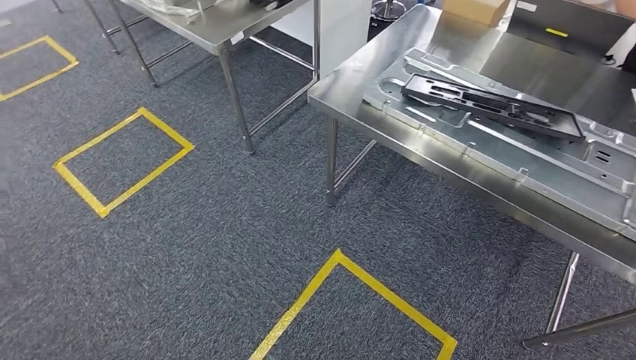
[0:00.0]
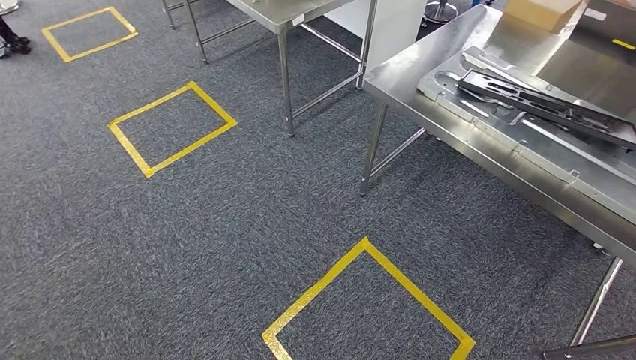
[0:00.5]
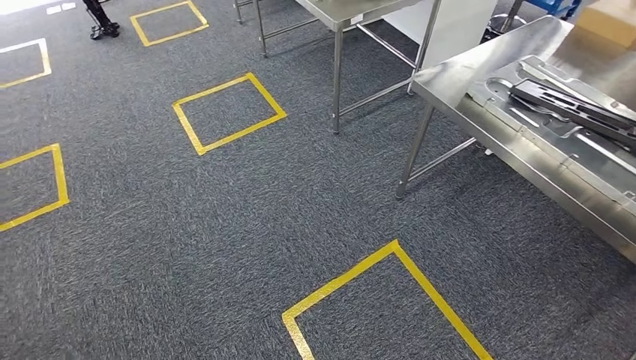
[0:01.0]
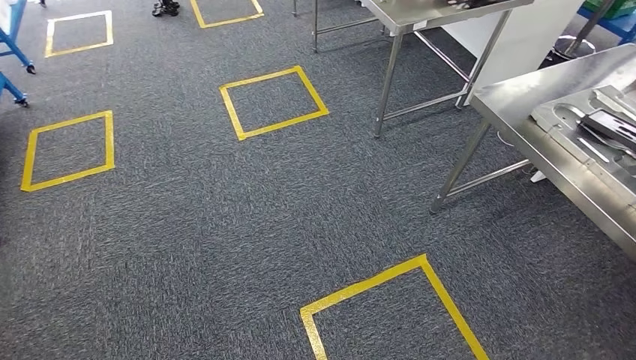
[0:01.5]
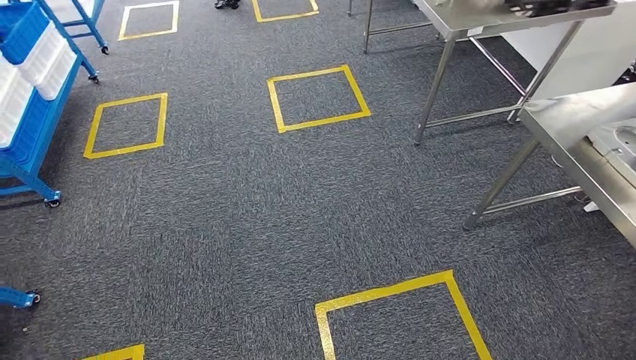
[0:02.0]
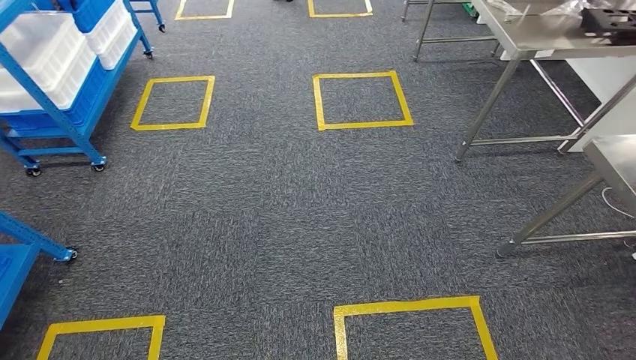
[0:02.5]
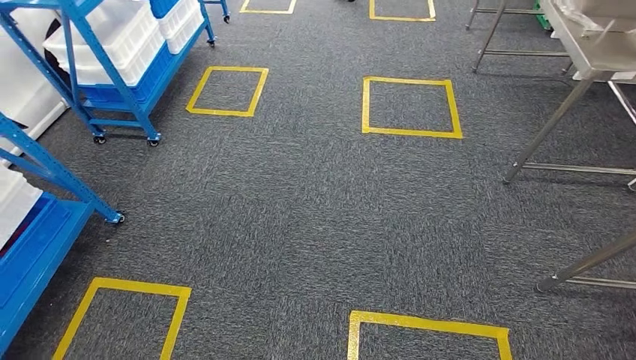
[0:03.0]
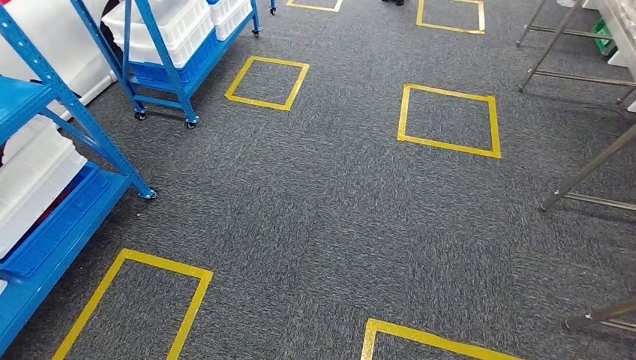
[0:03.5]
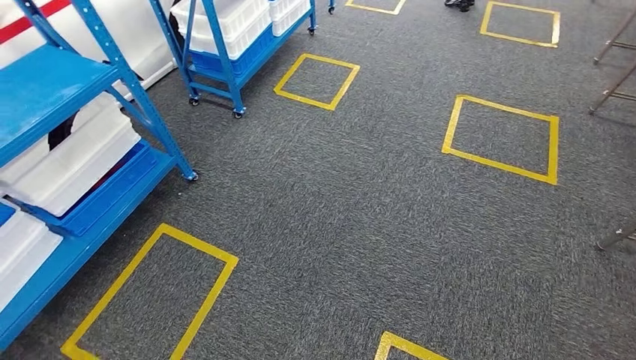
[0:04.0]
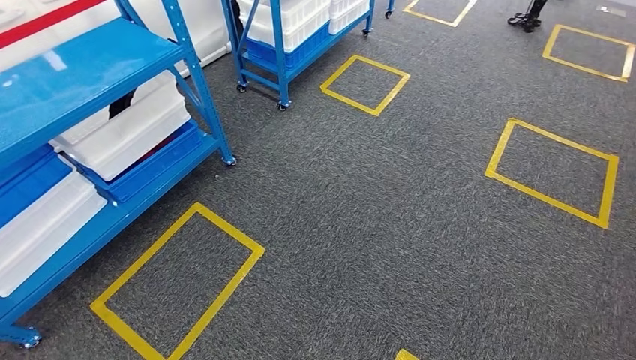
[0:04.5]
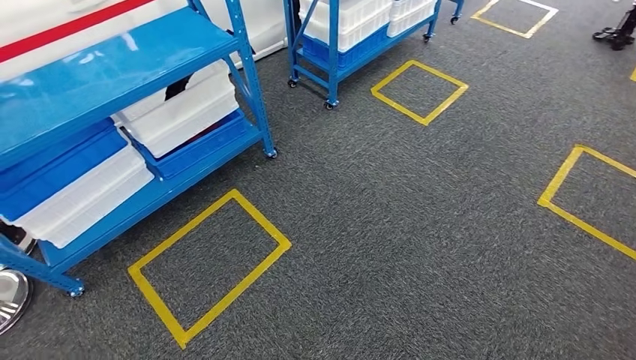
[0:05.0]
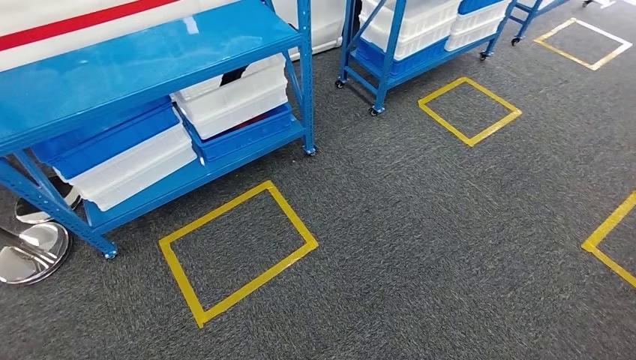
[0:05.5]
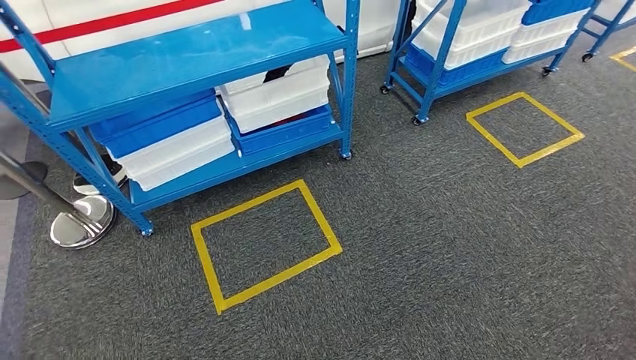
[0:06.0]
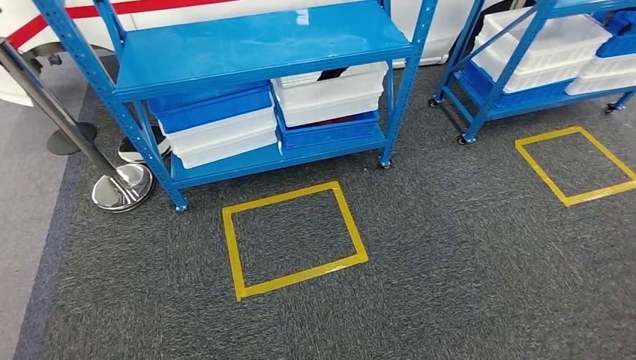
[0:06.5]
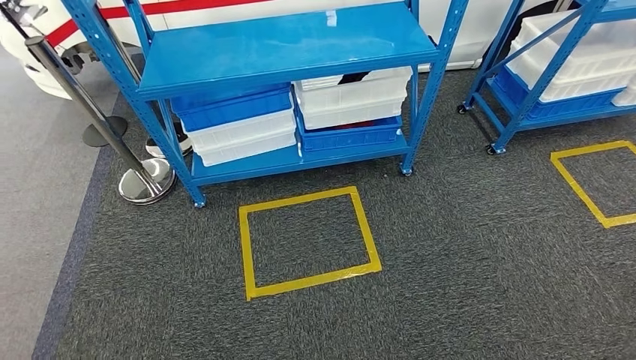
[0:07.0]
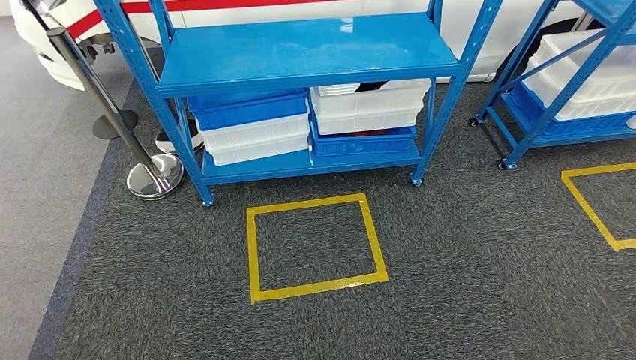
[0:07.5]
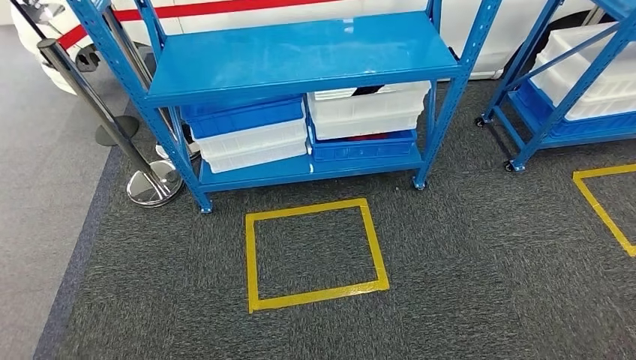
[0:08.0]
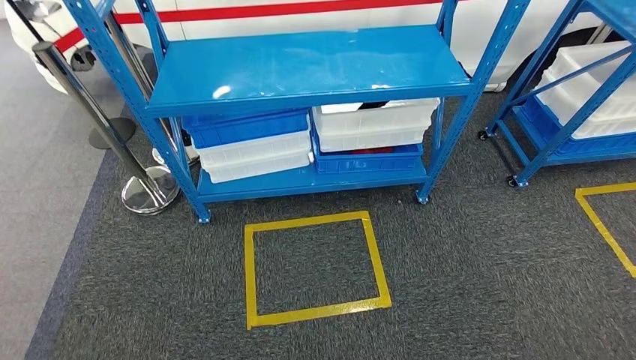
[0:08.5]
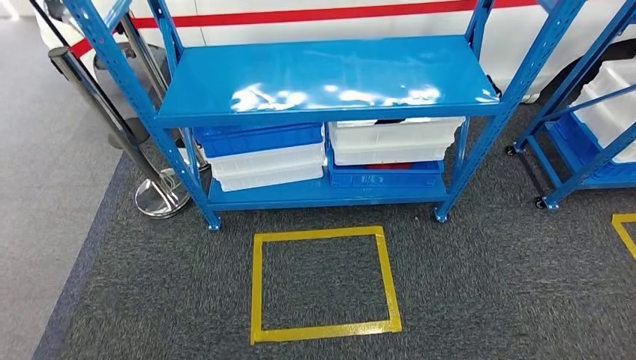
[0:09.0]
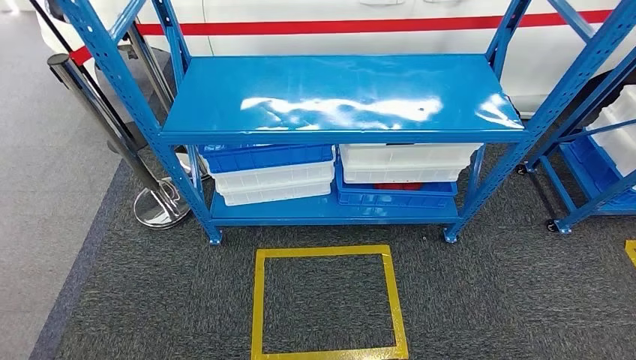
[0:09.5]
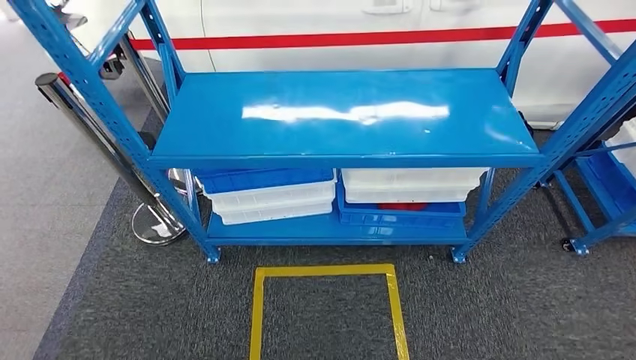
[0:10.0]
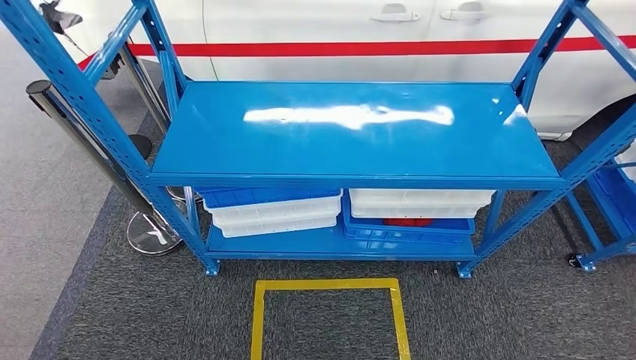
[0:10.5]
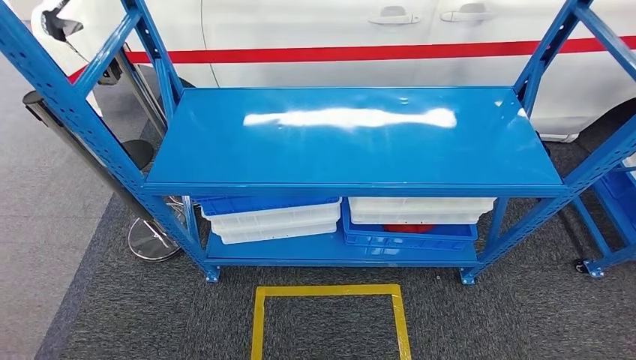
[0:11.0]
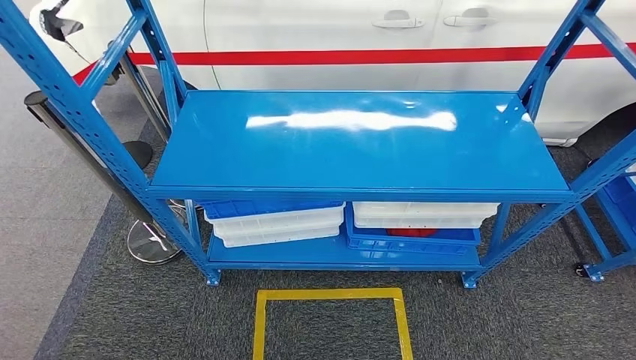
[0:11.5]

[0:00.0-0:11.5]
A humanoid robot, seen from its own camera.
Step, 0:02.5 to 0:11.5: Move to the initial position of the shelf.

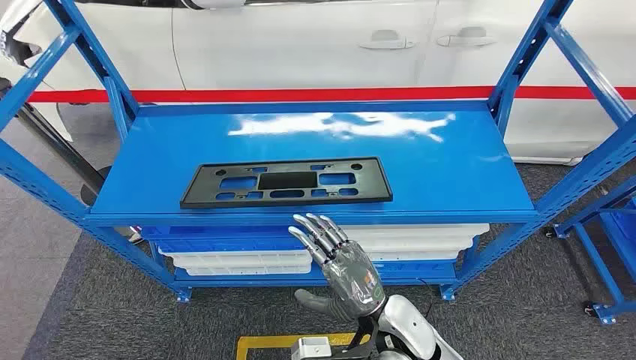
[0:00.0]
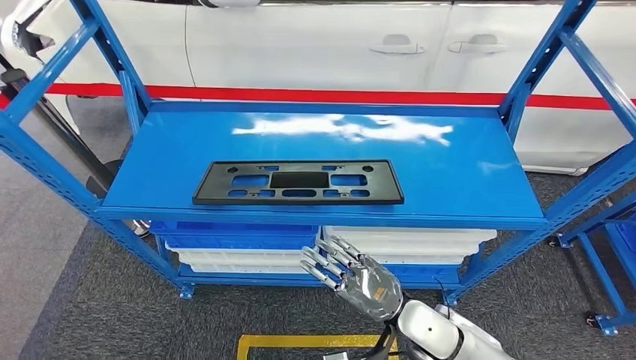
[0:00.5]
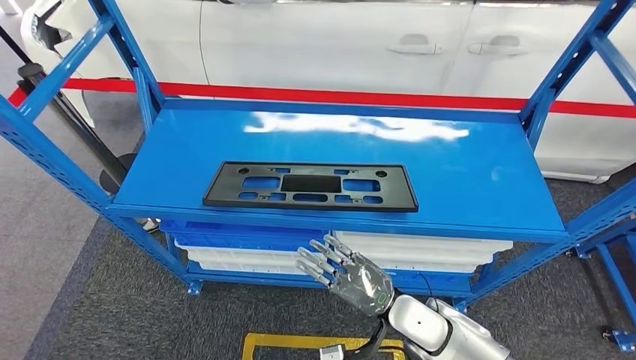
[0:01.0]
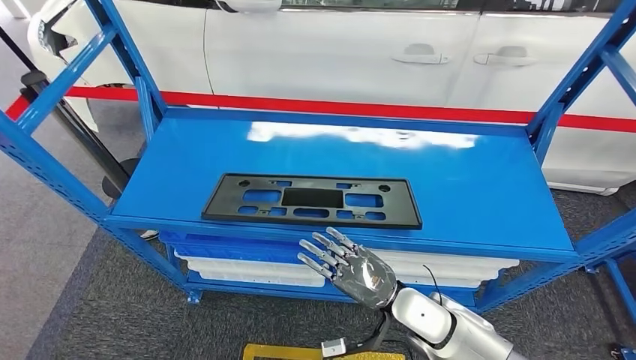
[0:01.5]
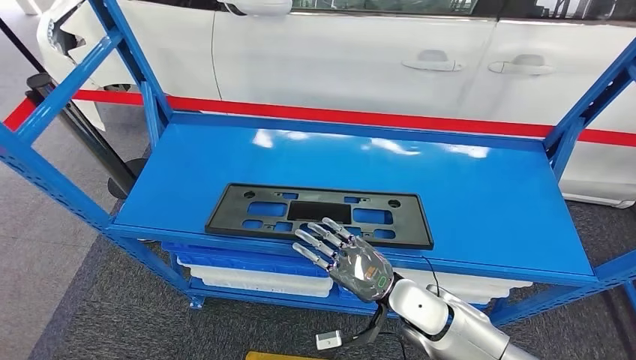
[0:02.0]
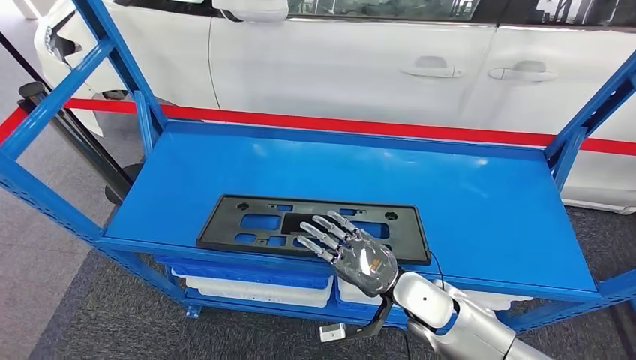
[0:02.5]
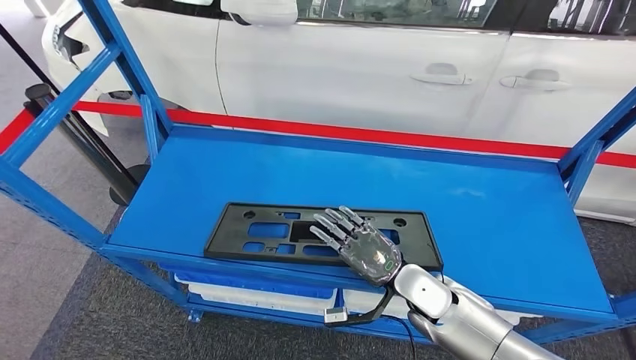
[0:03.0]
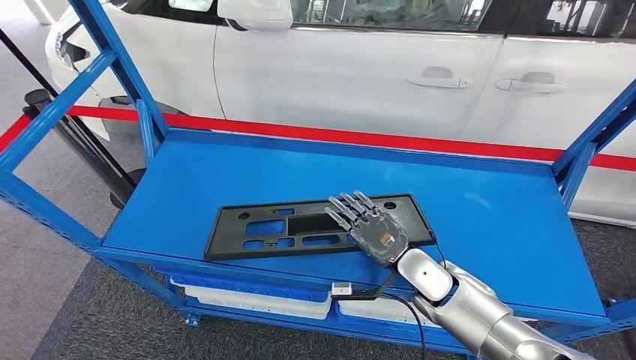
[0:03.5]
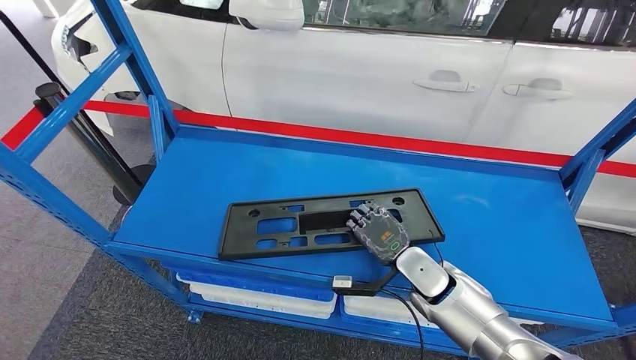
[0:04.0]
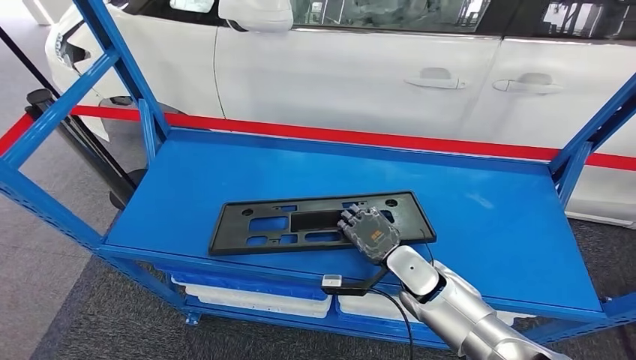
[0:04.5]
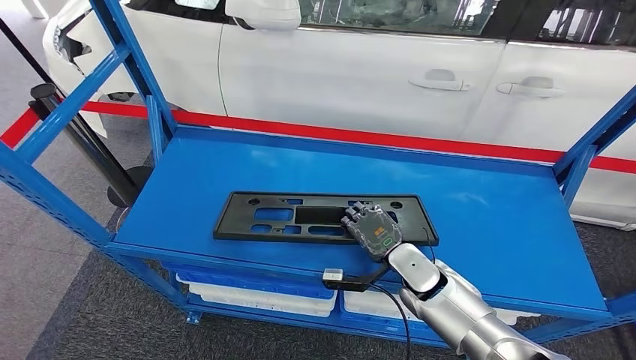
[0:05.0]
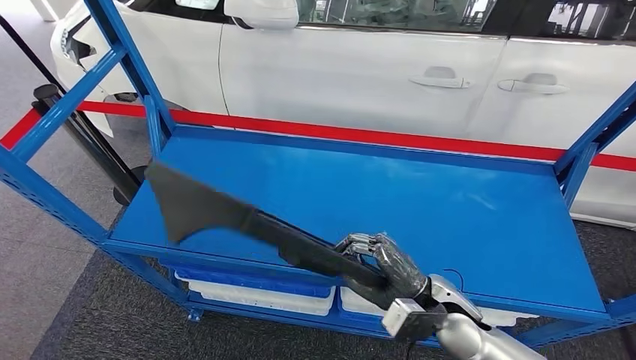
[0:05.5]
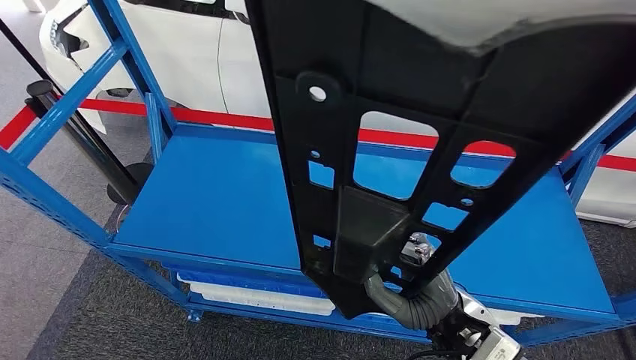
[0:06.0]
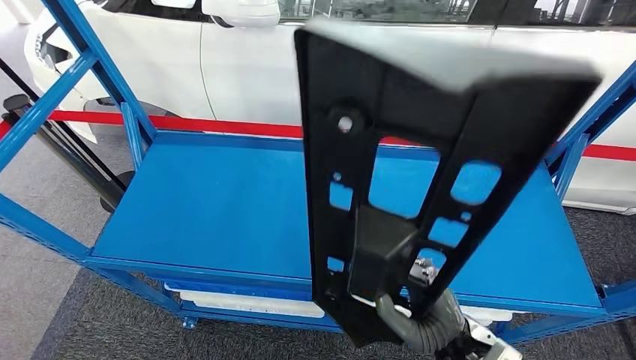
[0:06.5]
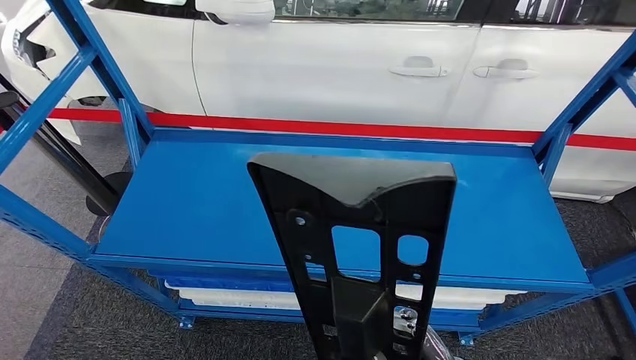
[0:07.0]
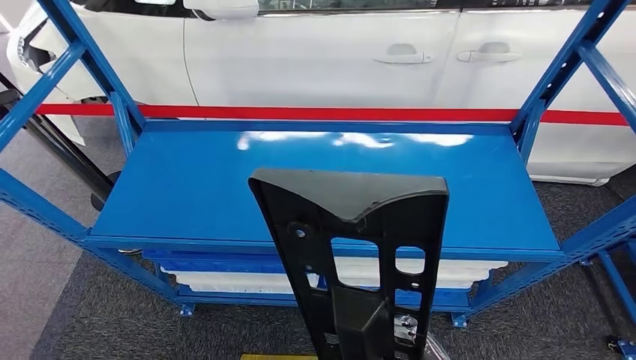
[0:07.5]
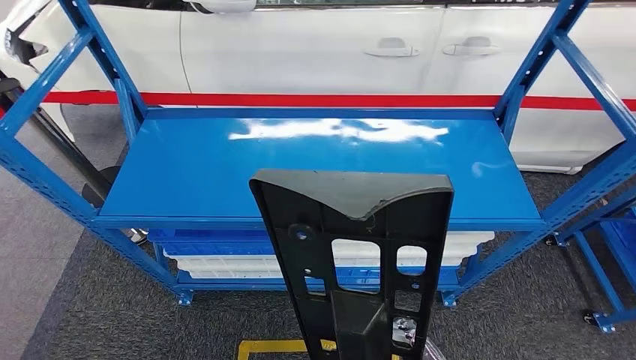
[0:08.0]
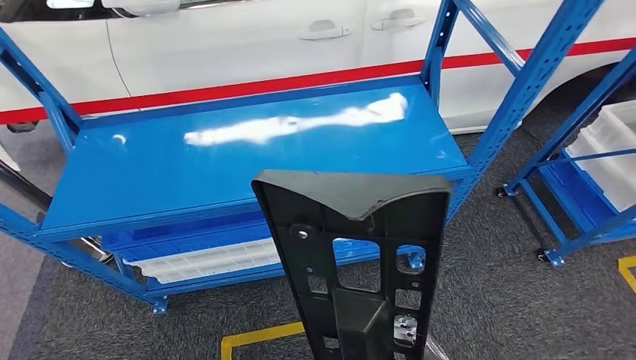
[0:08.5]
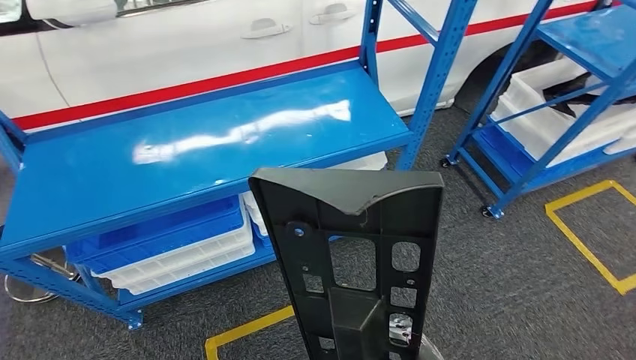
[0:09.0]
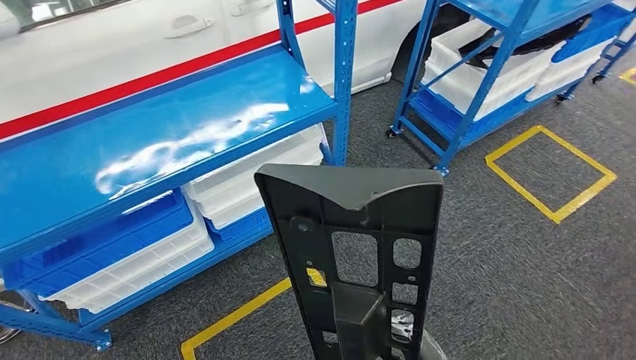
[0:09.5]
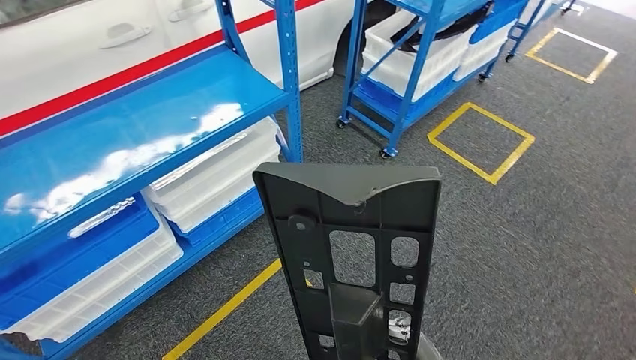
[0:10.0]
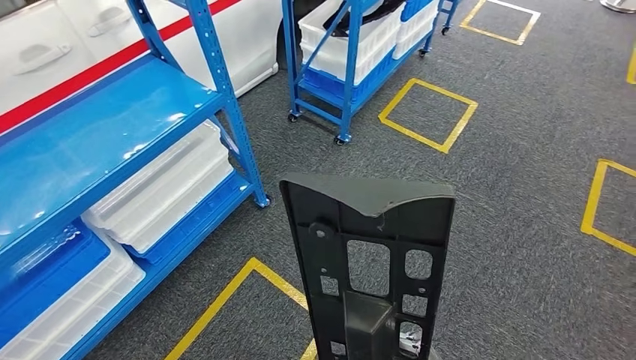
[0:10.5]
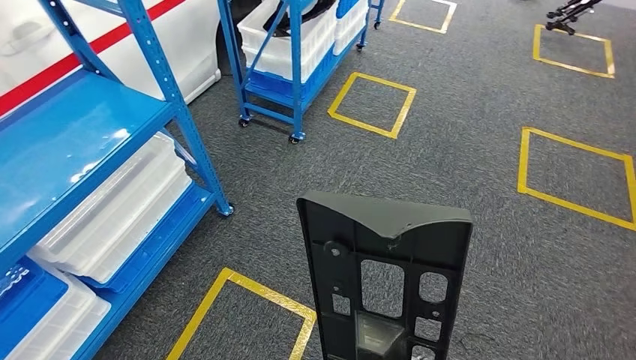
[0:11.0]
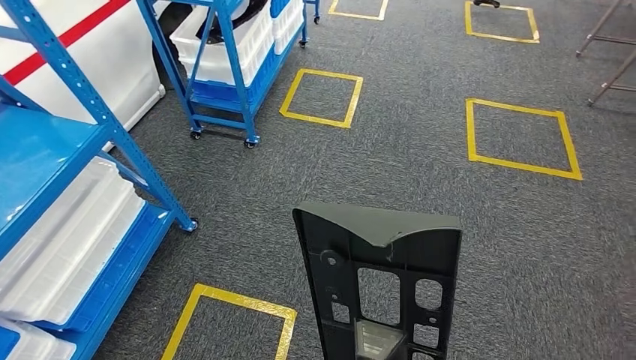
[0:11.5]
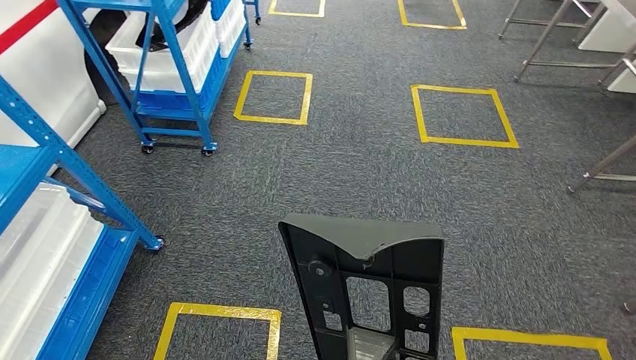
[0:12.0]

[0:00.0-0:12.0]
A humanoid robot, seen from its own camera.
Step, 0:00.0 to 0:06.0: Pick up the large material from the shelf.
